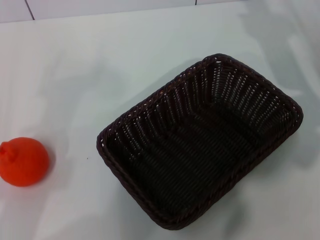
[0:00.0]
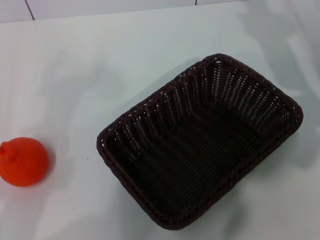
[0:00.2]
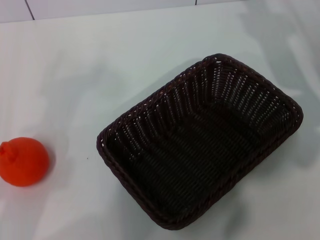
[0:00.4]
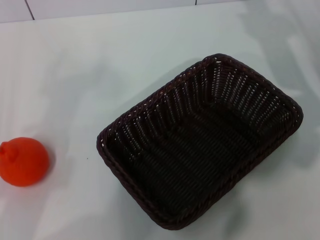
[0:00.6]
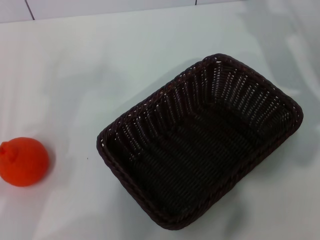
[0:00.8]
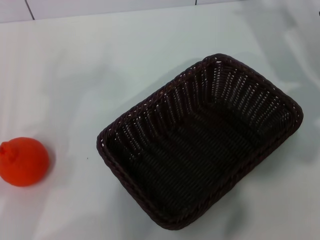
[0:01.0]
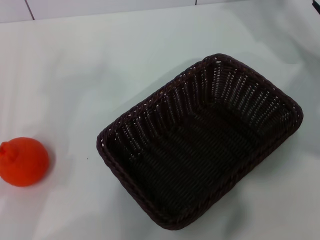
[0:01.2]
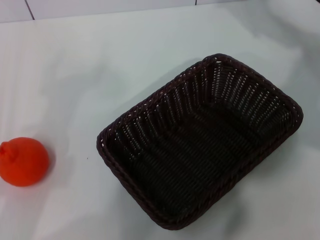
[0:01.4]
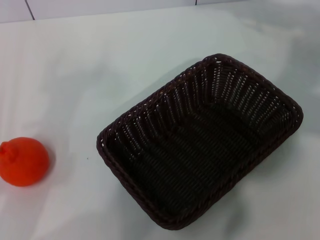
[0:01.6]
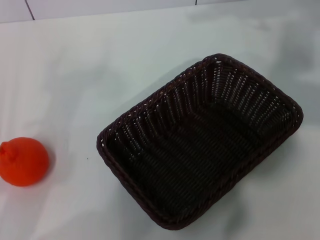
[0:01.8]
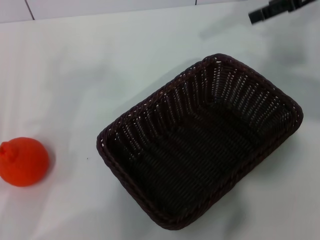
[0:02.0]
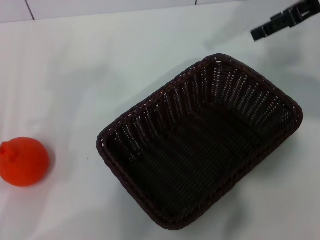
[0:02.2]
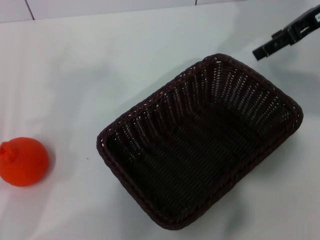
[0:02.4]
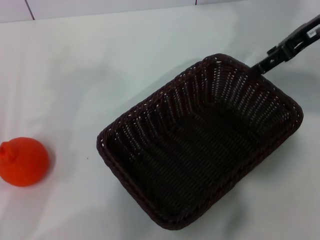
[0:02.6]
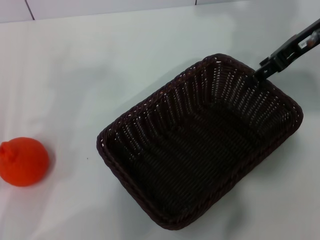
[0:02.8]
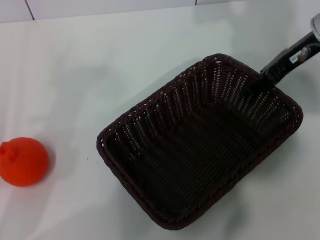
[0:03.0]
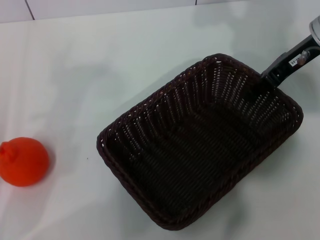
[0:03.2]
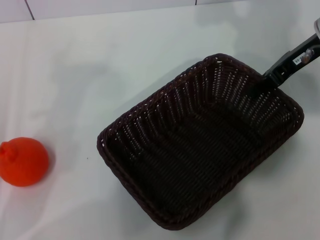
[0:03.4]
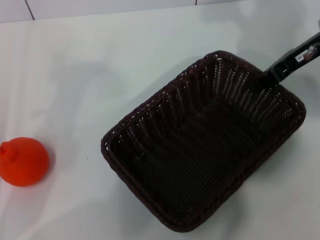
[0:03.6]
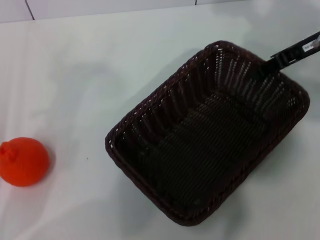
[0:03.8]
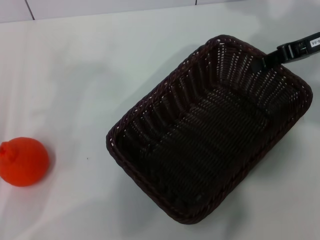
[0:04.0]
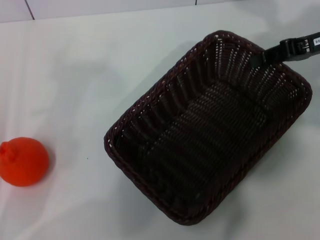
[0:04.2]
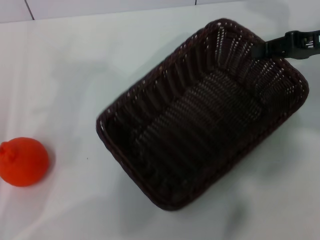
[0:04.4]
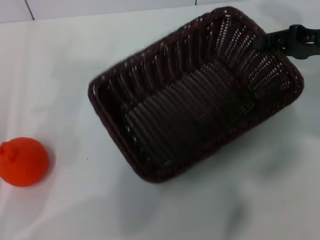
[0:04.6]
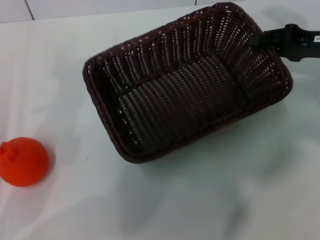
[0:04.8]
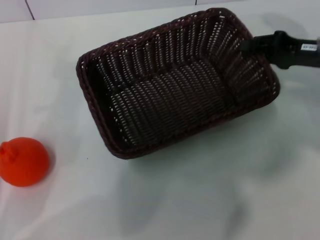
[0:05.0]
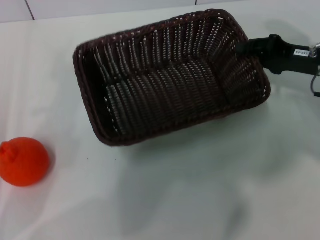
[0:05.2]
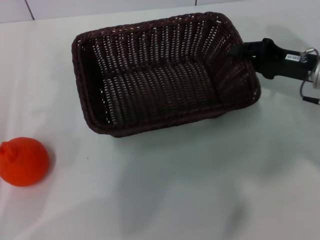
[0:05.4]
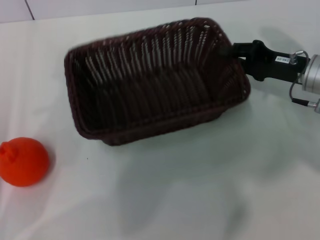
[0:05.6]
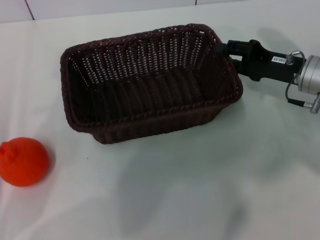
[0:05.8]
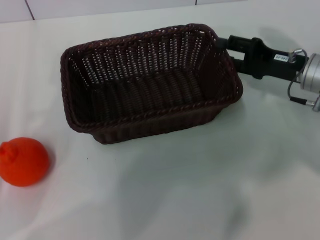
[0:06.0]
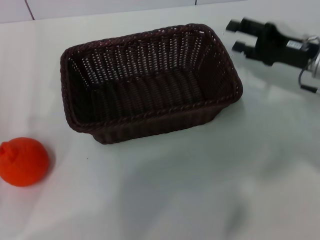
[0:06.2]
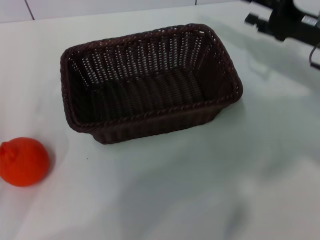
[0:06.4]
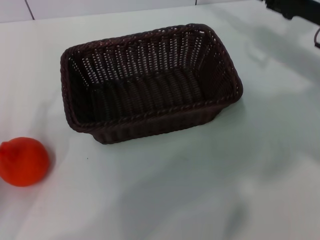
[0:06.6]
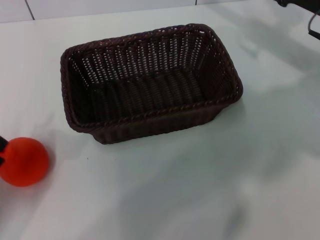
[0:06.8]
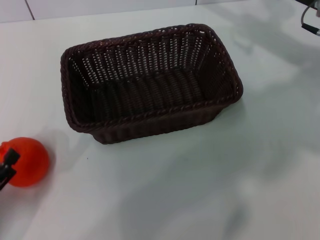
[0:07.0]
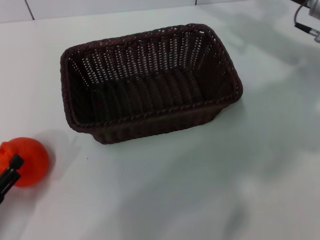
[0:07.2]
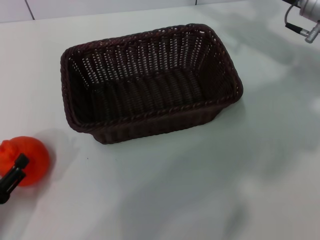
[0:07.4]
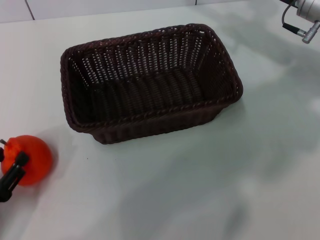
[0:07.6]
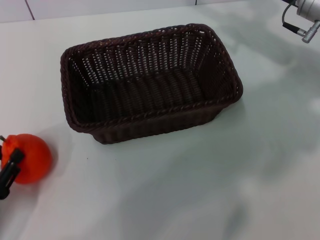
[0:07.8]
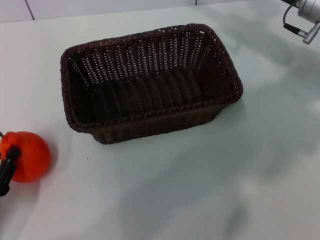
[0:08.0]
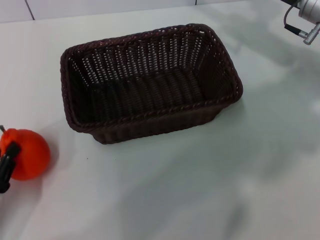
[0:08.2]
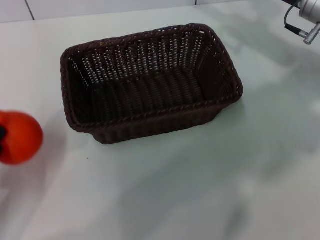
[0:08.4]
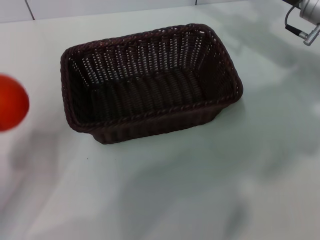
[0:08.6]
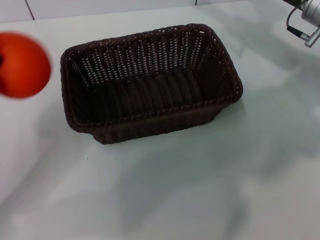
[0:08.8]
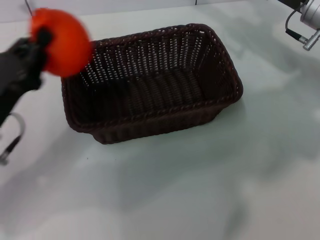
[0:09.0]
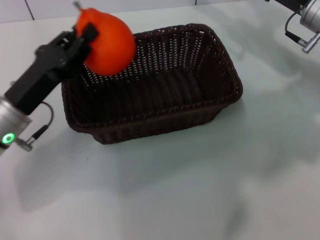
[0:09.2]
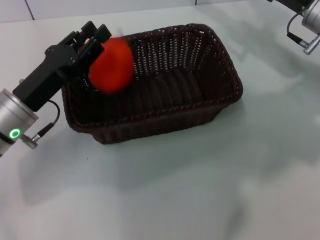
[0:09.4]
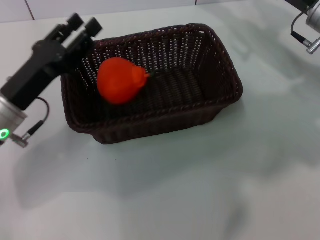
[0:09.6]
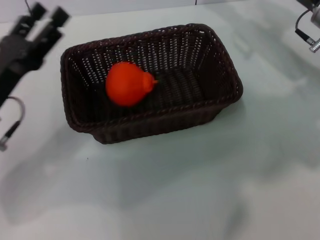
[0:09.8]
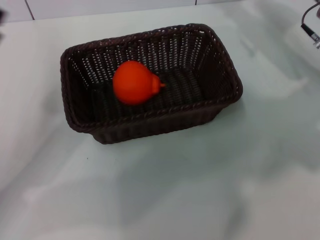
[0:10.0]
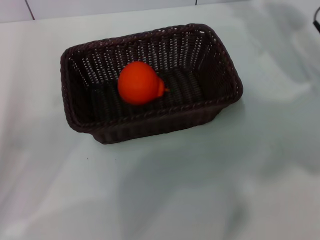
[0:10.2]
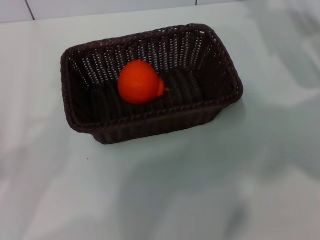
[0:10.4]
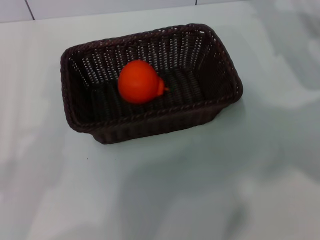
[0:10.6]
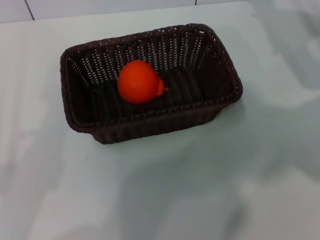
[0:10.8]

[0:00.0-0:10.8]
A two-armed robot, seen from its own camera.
Task of the whole recording: the right gripper pick up the black basket and place it horizontally in the middle of the table, the left gripper pick up the orange and place it into the black basket.
Step, 0:00.0 to 0:04.6: Pick up the dark basket with the right gripper.
Step, 0:04.8 to 0:06.2: Place the dark basket in the center of view with the right gripper.
Step, 0:06.4 to 0:08.4: Pick up the orange with the left gripper.
Step, 0:08.6 to 0:09.6: Place the orange into the dark basket with the left gripper.
0:00.0 to 0:01.6: The right gripper heads upward, covering about 10 cm.
0:01.6 to 0:03.0: The right gripper moves about 5 cm.
0:03.0 to 0:04.6: The right gripper moves to the right, approximately 5 cm, and closes up.
0:04.6 to 0:06.2: The right gripper is displaced downward by about 5 cm, and opens.
0:06.2 to 0:07.8: The left gripper heads downward, covering about 5 cm, and closes. The right gripper travels forward and upward by roughly 10 cm.
0:07.8 to 0:09.2: The left gripper is displaced forward, to the right and upward by some 20 cm, and closes its fingers.
0:09.2 to 0:10.8: The left gripper is displaced backward and to the left by about 20 cm, and opens up, while the right gripper moves to the right, roughly 5 cm.
